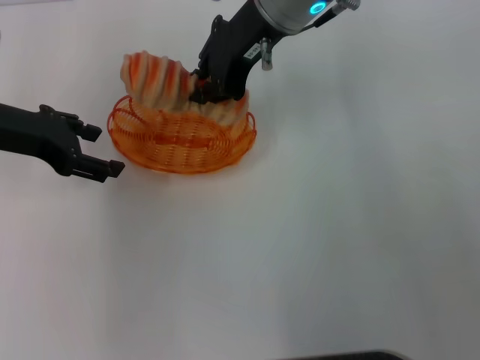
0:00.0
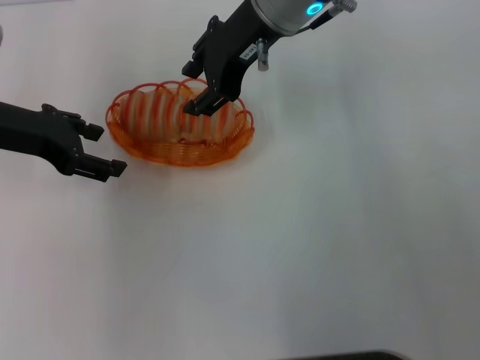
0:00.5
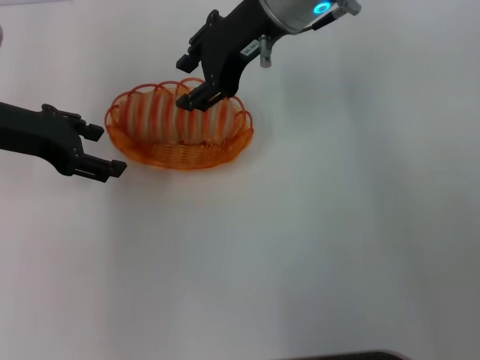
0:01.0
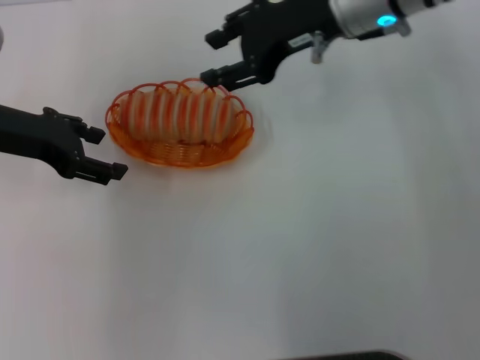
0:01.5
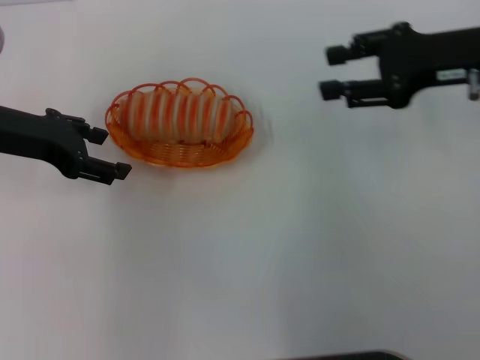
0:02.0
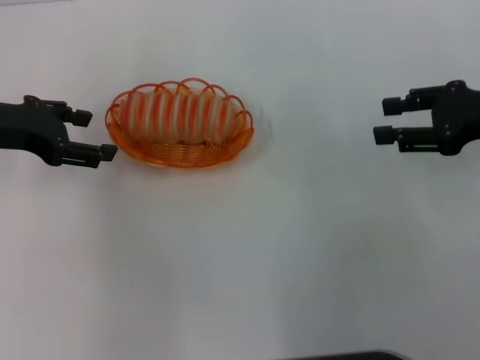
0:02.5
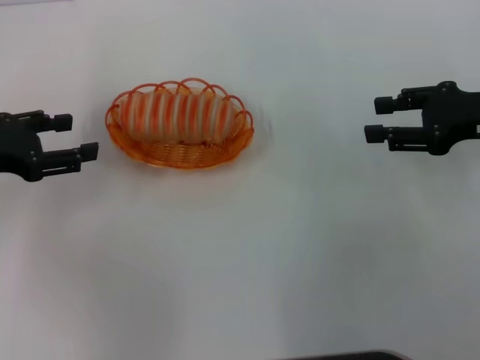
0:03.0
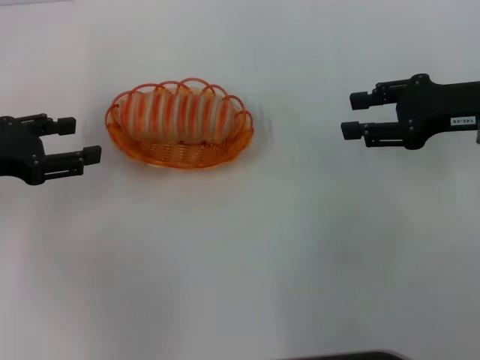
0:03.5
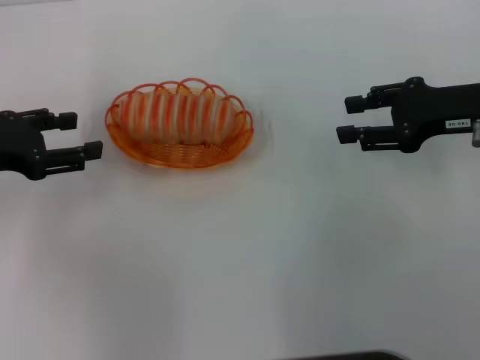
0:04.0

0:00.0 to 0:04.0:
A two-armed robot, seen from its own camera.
0:00.0 to 0:02.0: The right gripper travels to the right by approximately 20 cm, and opens.
0:02.0 to 0:04.0: The left gripper travels to the left by some 5 cm. Meanwhile the right gripper moves roughly 5 cm.

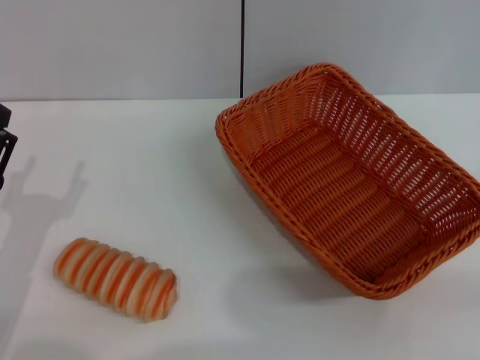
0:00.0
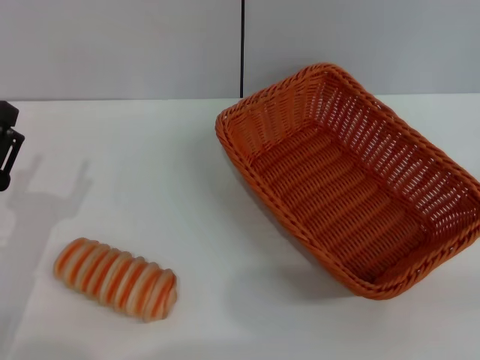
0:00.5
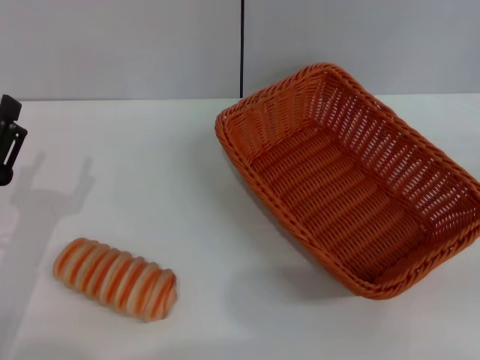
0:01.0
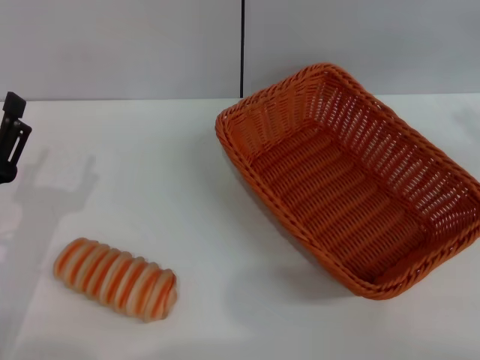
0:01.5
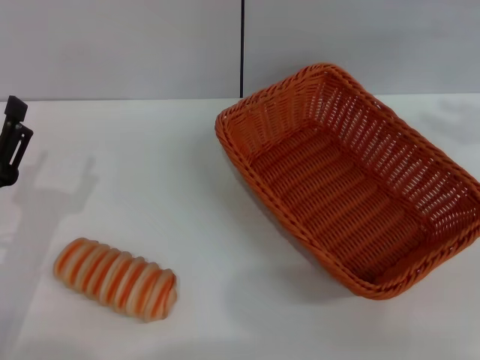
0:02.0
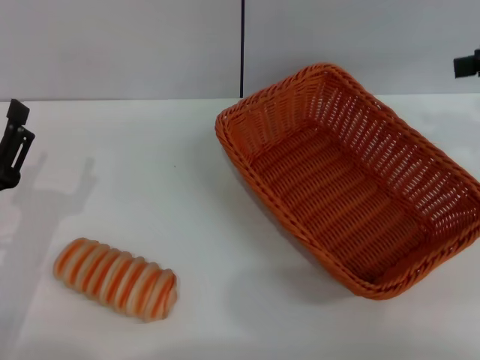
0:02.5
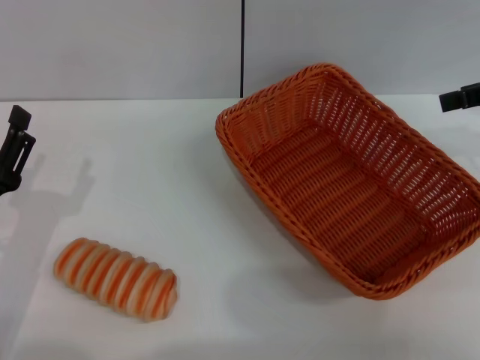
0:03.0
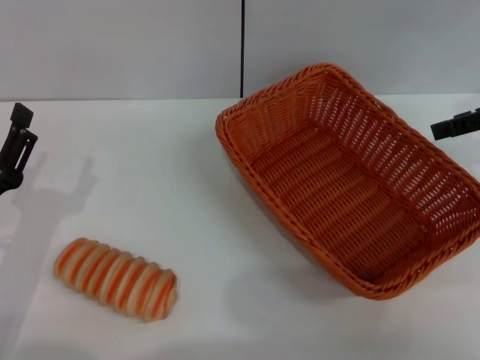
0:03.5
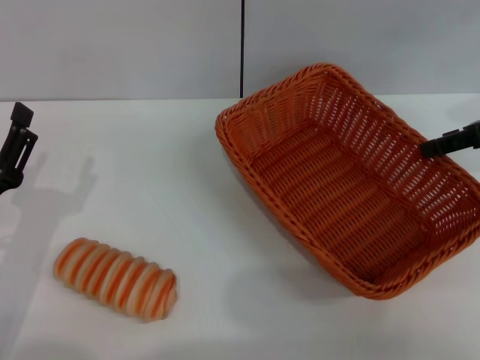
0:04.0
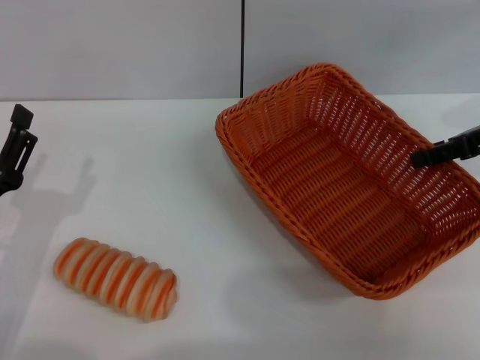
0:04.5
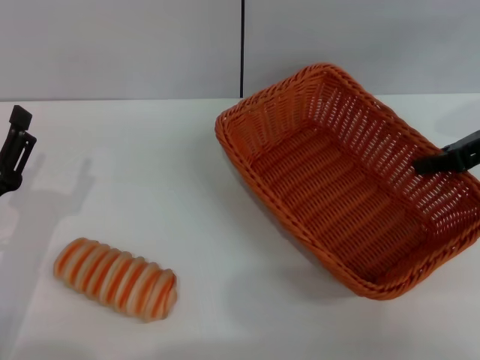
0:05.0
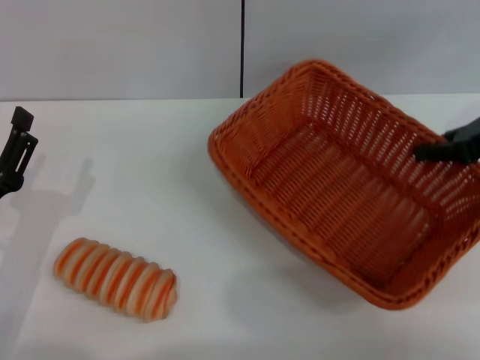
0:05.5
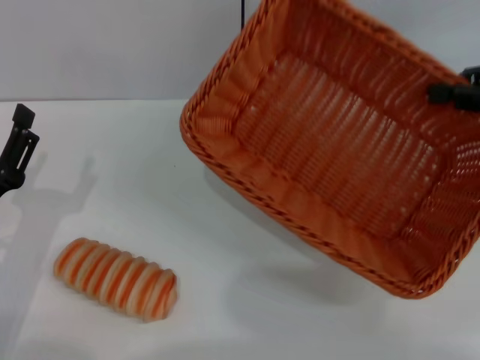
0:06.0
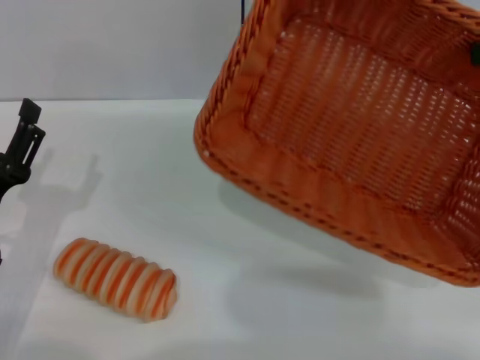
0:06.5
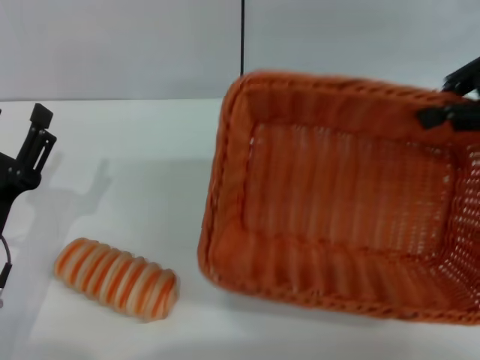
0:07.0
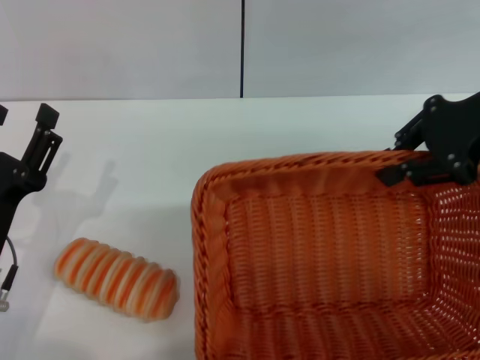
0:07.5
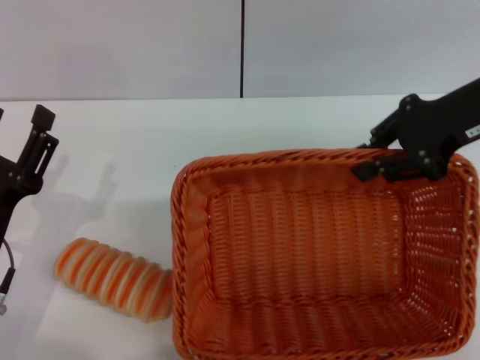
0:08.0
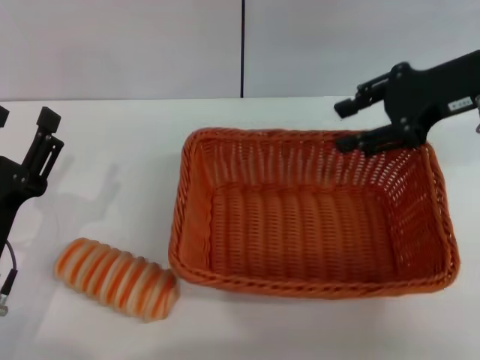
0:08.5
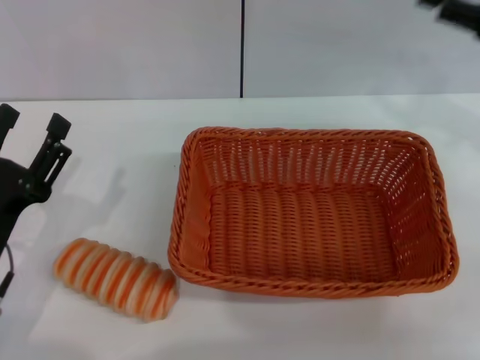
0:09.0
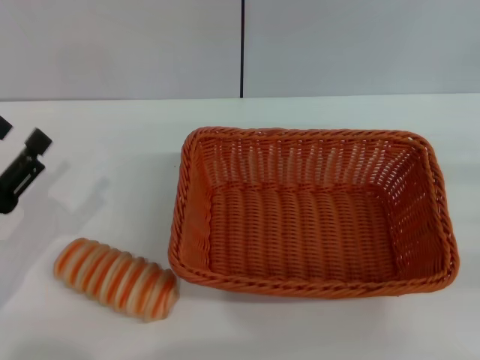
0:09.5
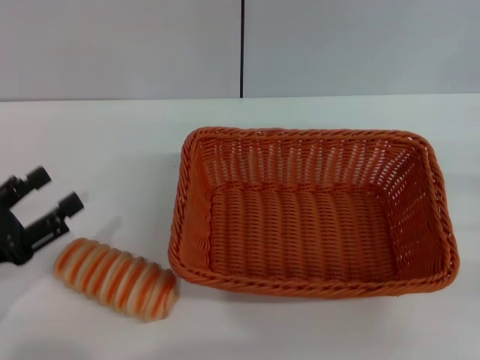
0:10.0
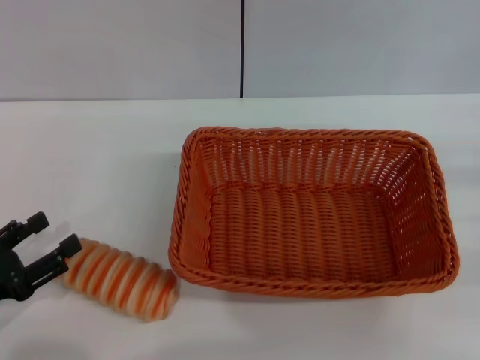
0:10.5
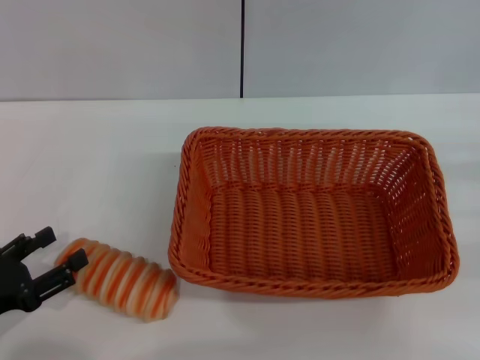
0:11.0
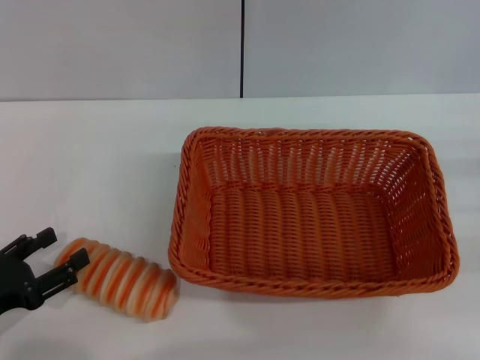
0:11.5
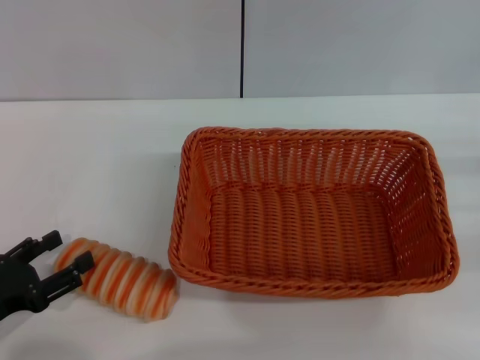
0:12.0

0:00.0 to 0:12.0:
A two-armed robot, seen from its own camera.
Step, 0:00.0 to 0:05.5: Pick up the light basket with the right gripper.
Step, 0:06.0 to 0:08.0: Place the light basket in the center of view with the right gripper.
0:02.0 to 0:04.0: The right gripper heads downward and to the left, covering about 10 cm, and opens up.
0:04.0 to 0:06.0: The right gripper moves some 5 cm, and closes.
0:06.0 to 0:08.0: The right gripper shifts about 10 cm to the left.
0:08.0 to 0:10.0: The left gripper heads to the left, covering some 5 cm. The right gripper moves to the right, downward and backward, some 25 cm, and opens its fingers.
0:10.0 to 0:12.0: The grippers make only small movements.

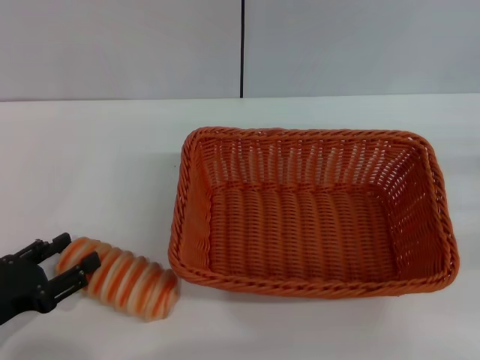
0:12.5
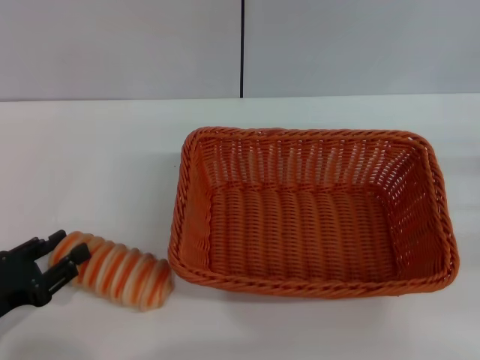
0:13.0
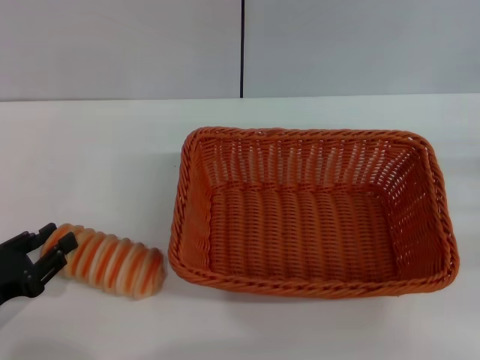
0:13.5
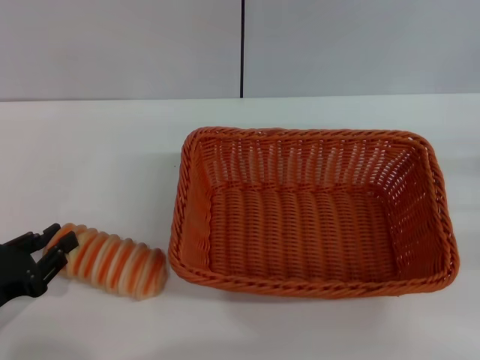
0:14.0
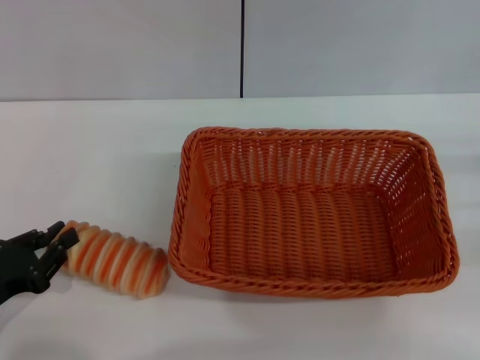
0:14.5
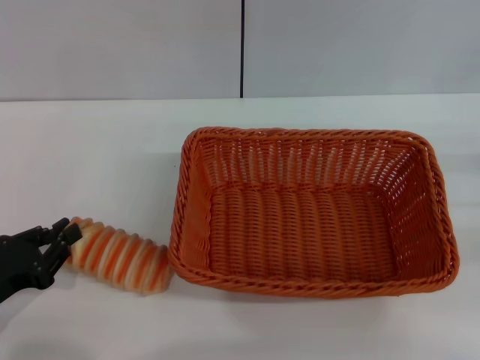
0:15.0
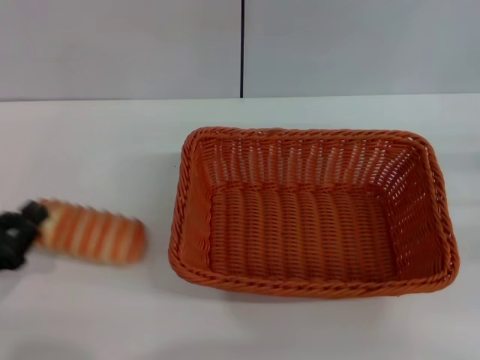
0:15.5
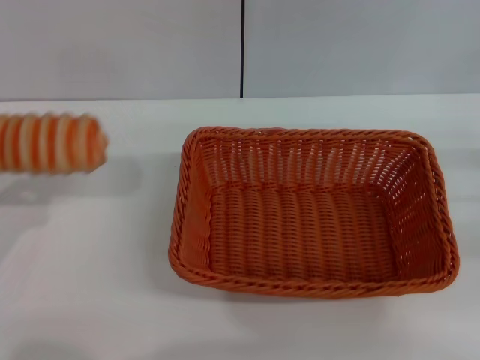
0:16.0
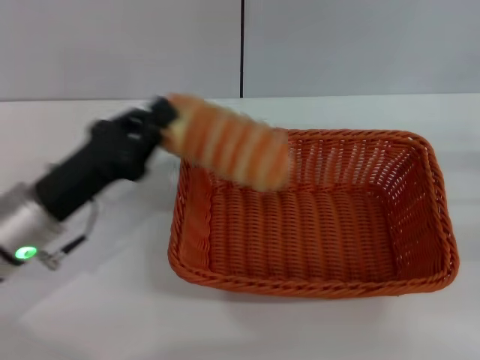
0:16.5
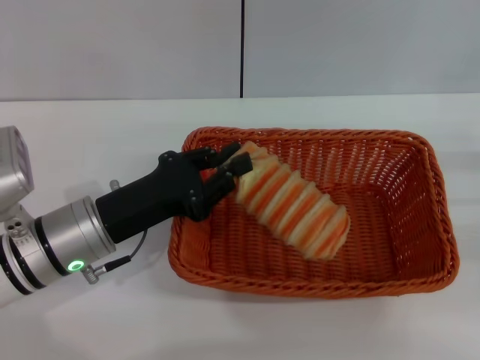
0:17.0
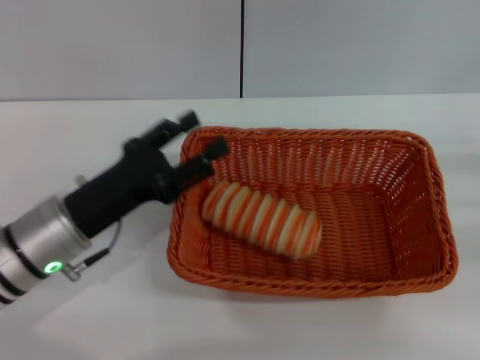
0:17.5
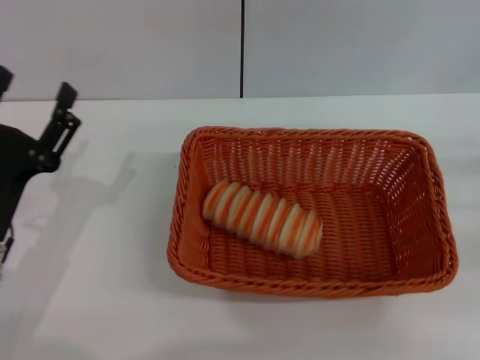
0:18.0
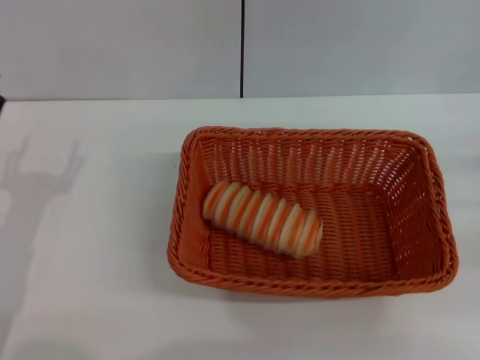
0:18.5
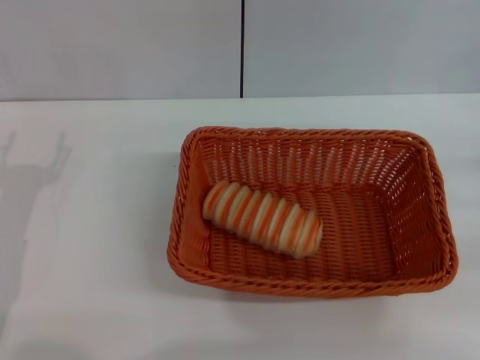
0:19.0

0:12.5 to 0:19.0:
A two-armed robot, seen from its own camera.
Step, 0:12.5 to 0:15.5: Pick up the long bread with the left gripper.
Step, 0:16.0 to 0:17.0: Place the long bread into the light basket with the left gripper.
0:12.5 to 0:14.5: The left gripper closes its fingers.
0:14.5 to 0:17.0: The left gripper shifts roughly 15 cm to the right and forward.
0:17.0 to 0:19.0: The left gripper is displaced to the left by approximately 10 cm, and opens up.

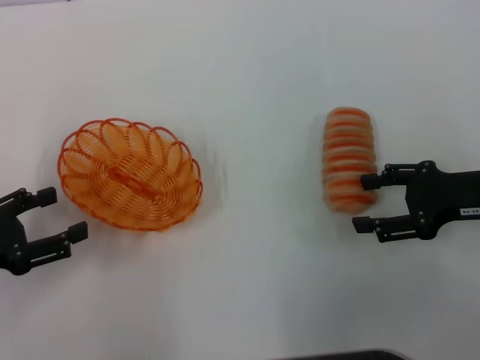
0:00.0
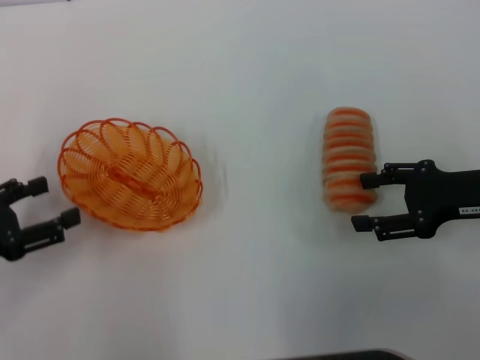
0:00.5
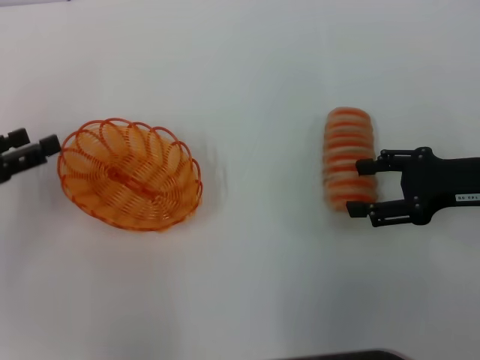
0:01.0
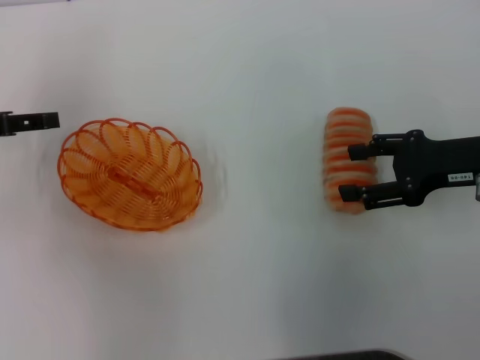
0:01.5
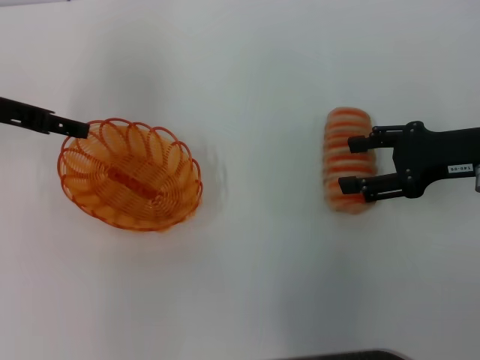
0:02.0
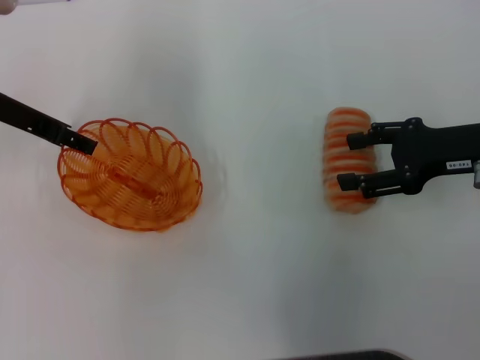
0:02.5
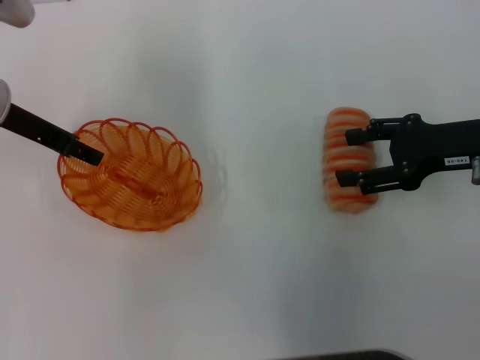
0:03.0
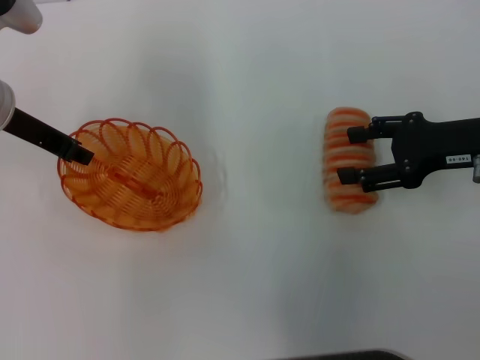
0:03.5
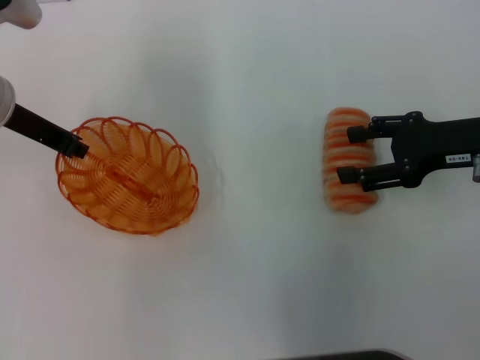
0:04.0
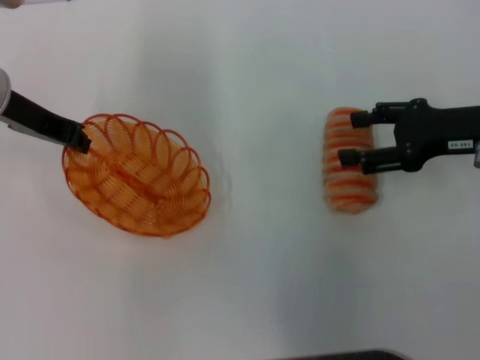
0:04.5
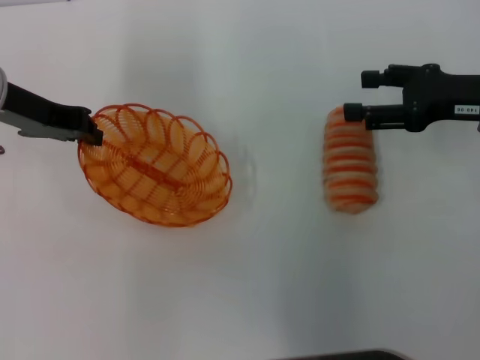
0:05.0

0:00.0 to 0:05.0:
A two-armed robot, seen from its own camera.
Step, 0:00.0 to 0:04.5: Pick up the basket with the left gripper.
0:00.0 to 0:02.5: The left gripper travels forward, to the right and upward by about 20 cm.
0:02.5 to 0:05.0: The left gripper closes up.
